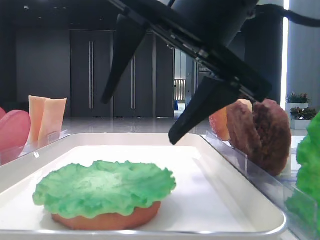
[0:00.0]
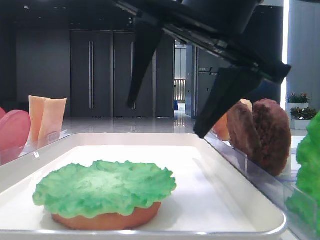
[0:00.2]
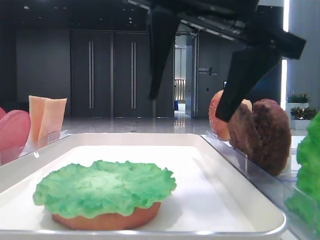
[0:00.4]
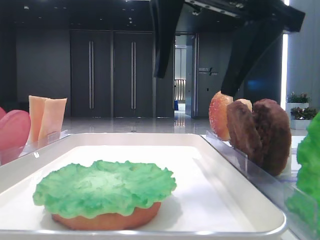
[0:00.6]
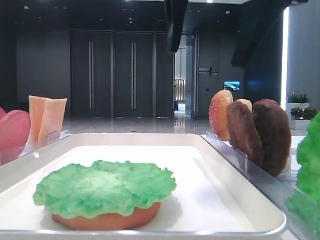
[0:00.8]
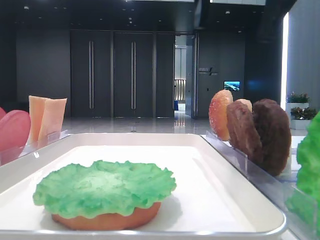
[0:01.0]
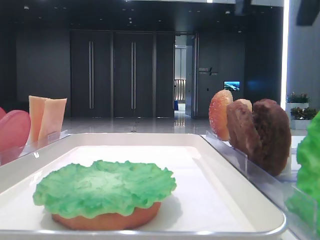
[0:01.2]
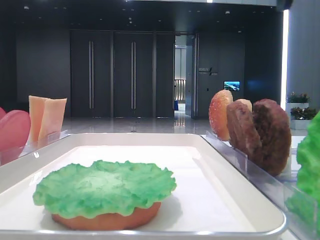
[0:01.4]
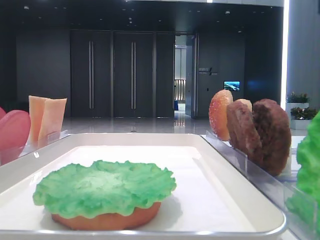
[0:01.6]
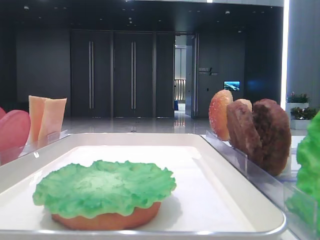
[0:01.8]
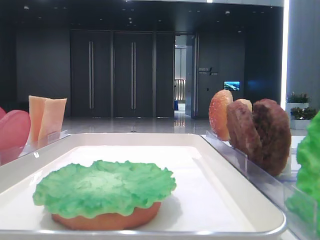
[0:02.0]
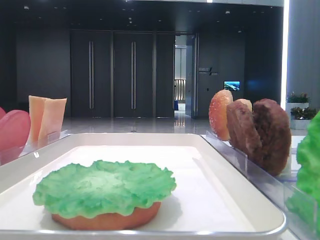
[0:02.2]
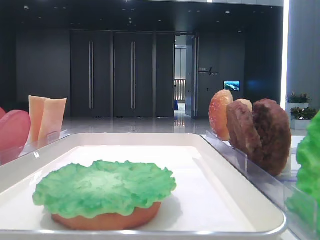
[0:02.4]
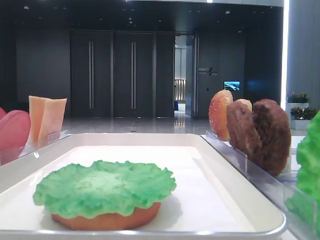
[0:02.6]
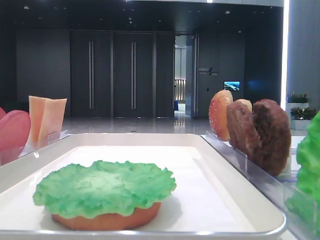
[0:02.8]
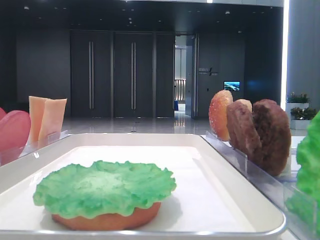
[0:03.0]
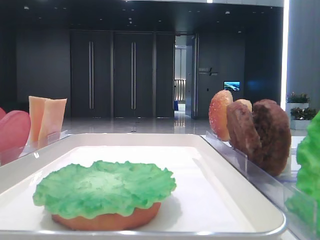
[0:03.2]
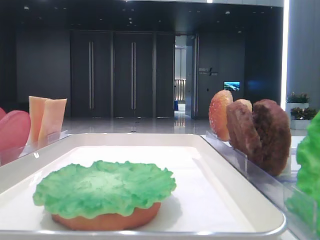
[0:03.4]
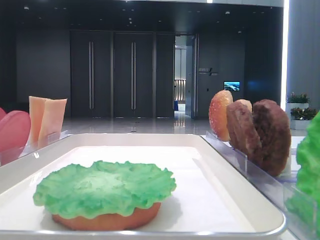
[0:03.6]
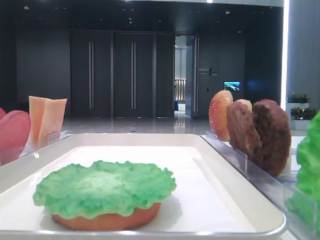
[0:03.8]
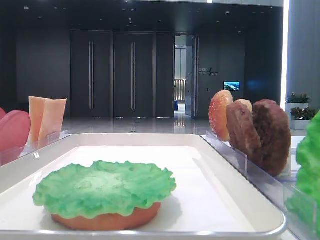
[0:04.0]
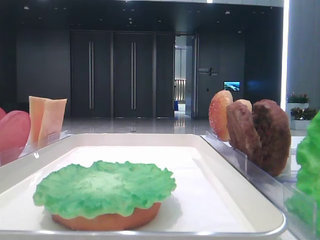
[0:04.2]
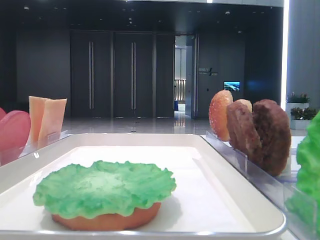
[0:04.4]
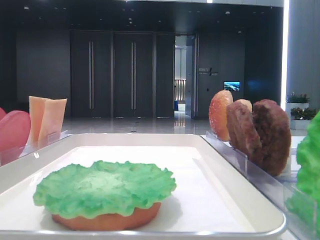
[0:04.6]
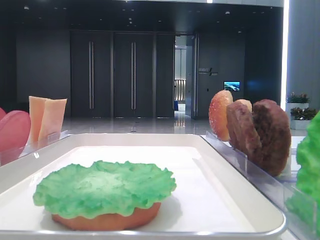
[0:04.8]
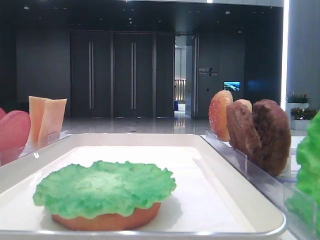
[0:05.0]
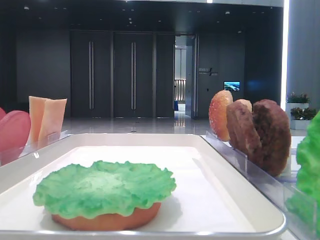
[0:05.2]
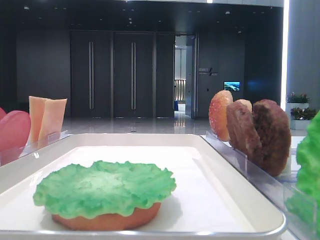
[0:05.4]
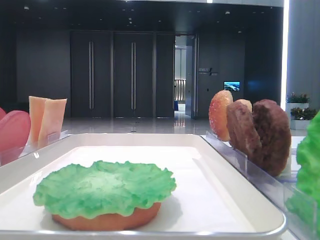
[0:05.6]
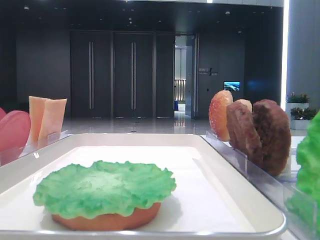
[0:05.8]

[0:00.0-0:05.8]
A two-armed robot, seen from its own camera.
0:00.0 to 0:01.4: The right gripper travels upward and to the right by about 20 cm.
0:04.4 to 0:05.8: Both grippers stay about where they are.
